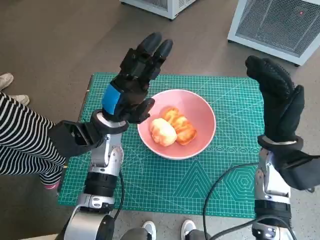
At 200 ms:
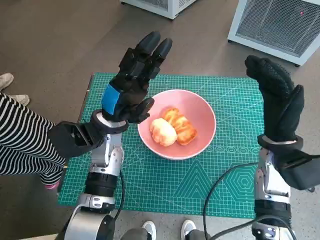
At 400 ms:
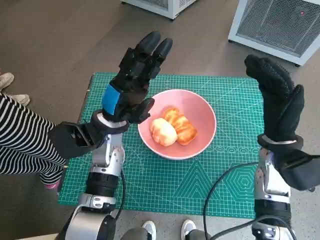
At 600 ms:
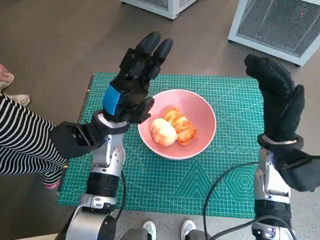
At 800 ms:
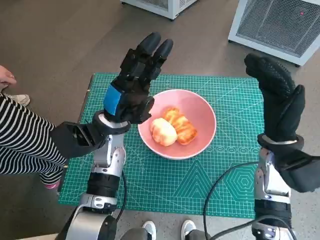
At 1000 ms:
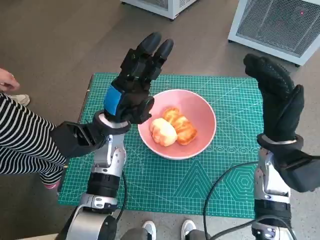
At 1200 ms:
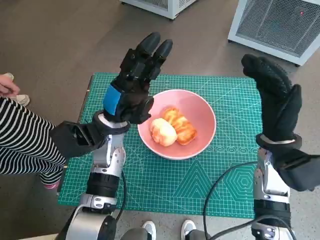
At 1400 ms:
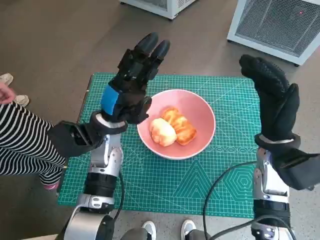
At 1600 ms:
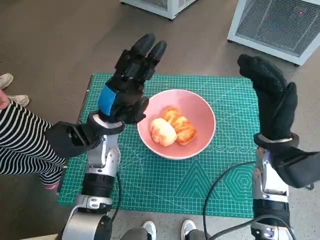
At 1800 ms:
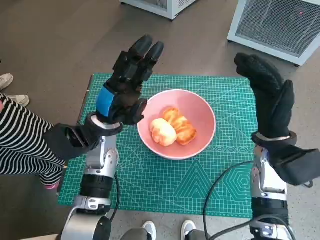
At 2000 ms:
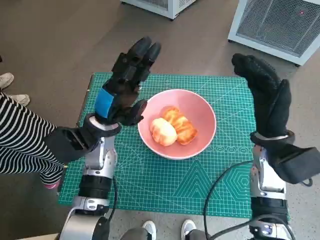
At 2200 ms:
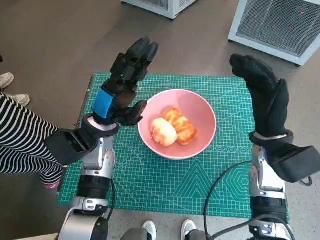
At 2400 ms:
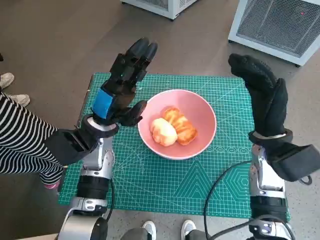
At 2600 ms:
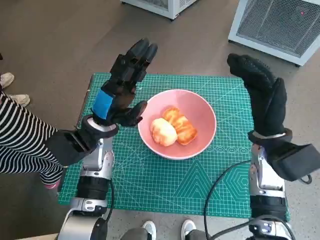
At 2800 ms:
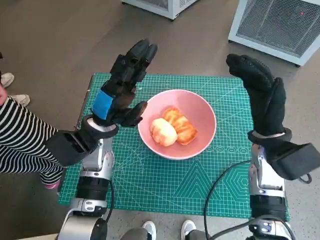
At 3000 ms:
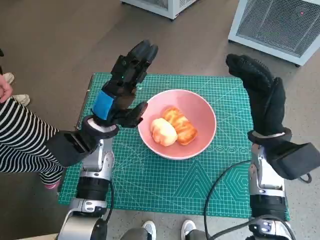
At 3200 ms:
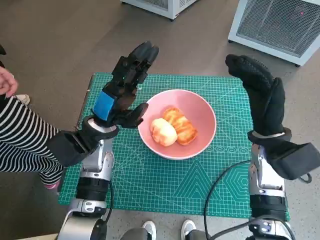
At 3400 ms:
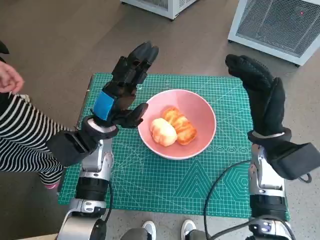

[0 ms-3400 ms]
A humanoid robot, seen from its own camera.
Task of the whole recording: Push the bowl into the center of the table and put the bread into the bowl.
0 ms to 1600 ms: Both hands stay about where they are.
1600 ms to 3400 ms: The hands stay close to where they were, moving slightly.

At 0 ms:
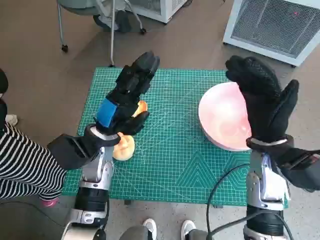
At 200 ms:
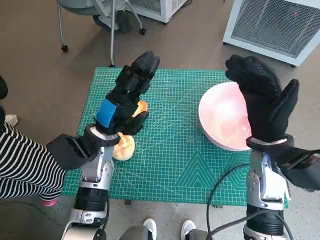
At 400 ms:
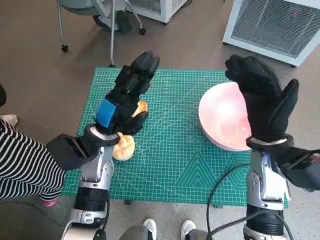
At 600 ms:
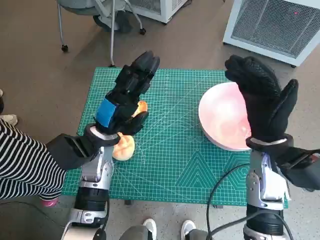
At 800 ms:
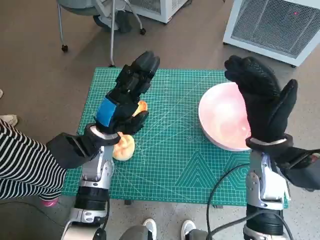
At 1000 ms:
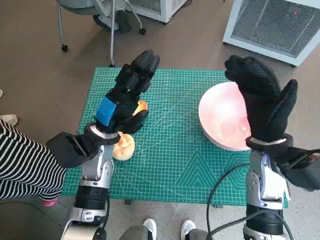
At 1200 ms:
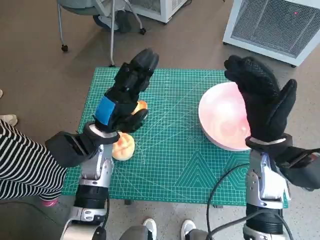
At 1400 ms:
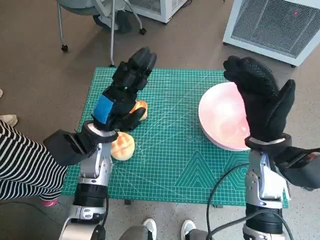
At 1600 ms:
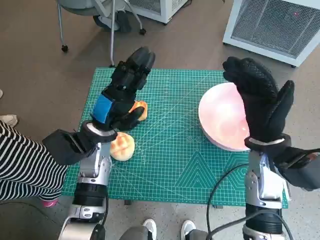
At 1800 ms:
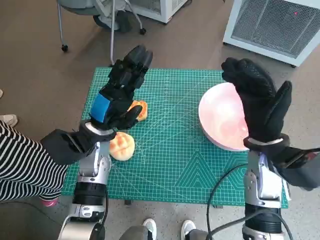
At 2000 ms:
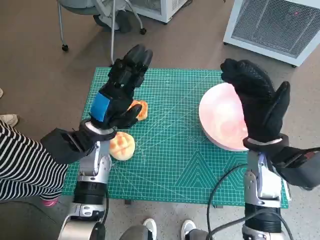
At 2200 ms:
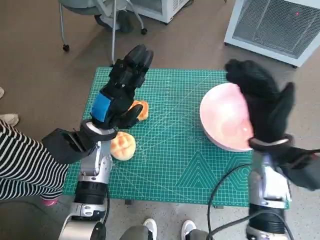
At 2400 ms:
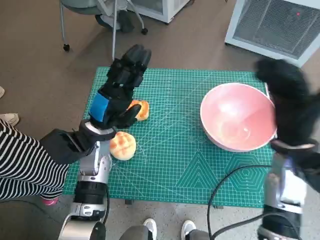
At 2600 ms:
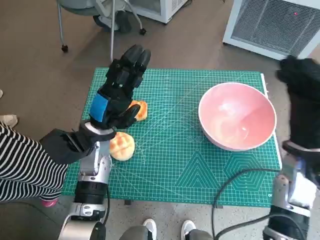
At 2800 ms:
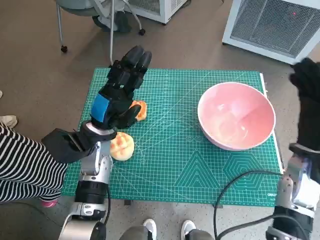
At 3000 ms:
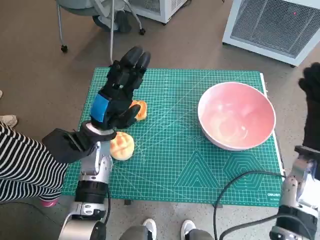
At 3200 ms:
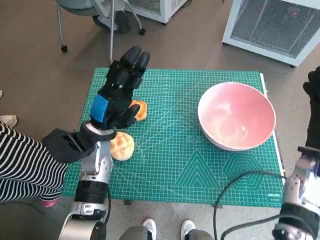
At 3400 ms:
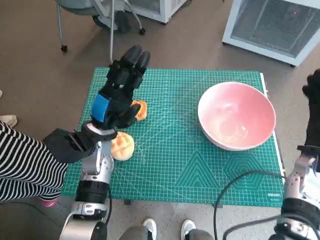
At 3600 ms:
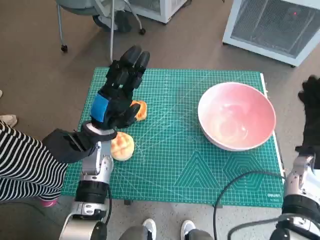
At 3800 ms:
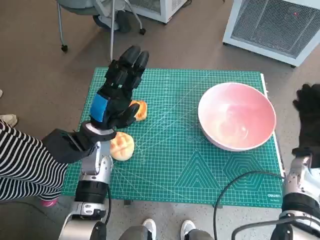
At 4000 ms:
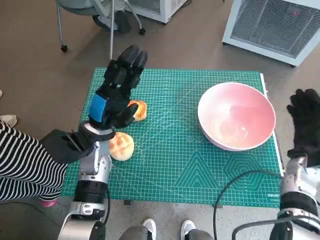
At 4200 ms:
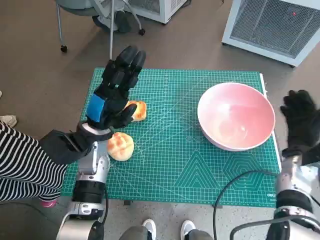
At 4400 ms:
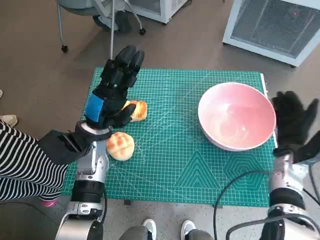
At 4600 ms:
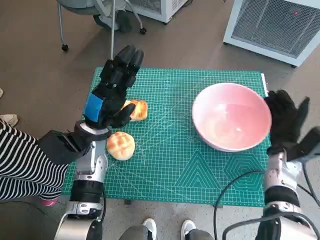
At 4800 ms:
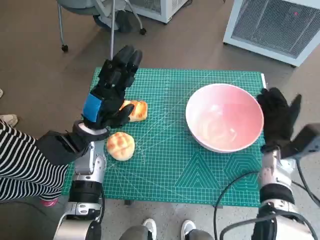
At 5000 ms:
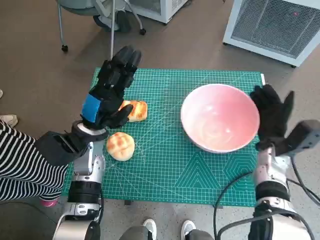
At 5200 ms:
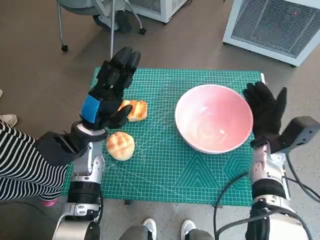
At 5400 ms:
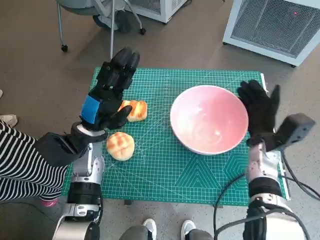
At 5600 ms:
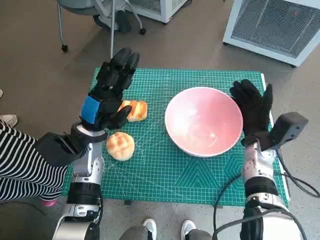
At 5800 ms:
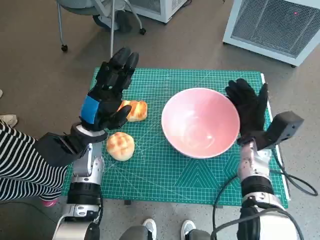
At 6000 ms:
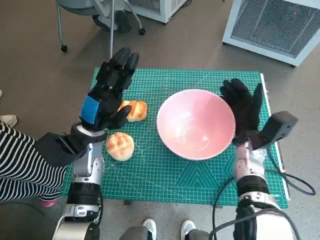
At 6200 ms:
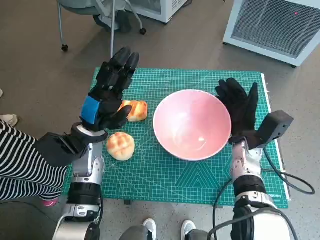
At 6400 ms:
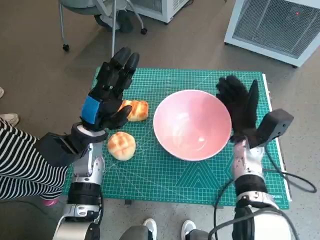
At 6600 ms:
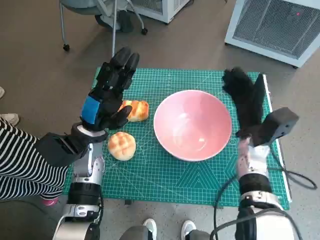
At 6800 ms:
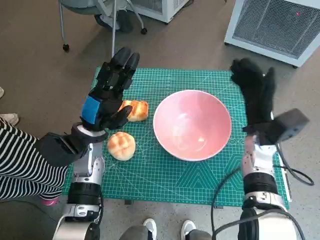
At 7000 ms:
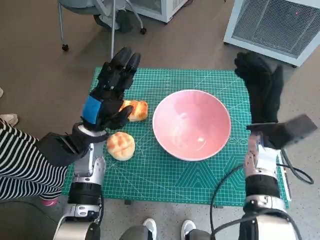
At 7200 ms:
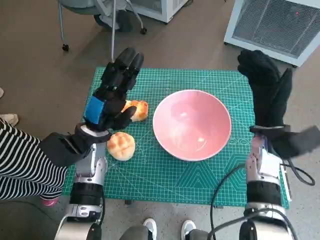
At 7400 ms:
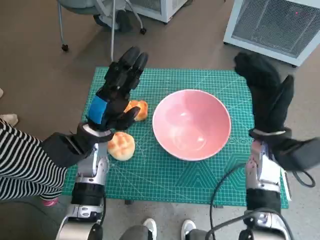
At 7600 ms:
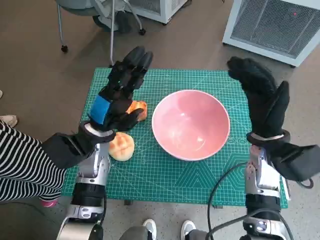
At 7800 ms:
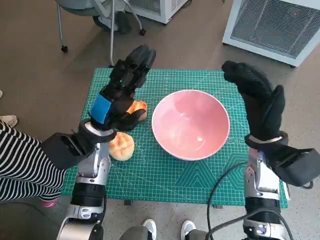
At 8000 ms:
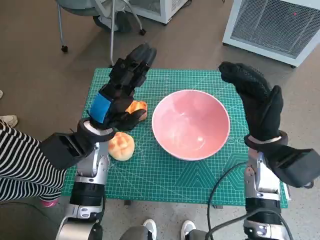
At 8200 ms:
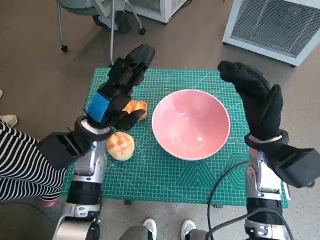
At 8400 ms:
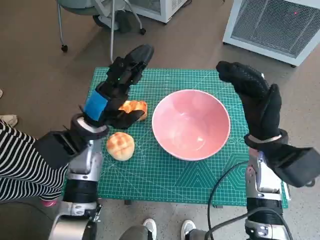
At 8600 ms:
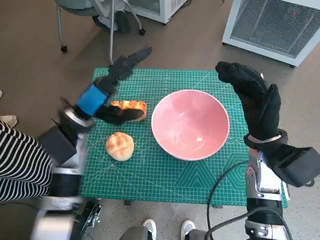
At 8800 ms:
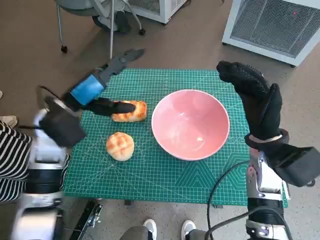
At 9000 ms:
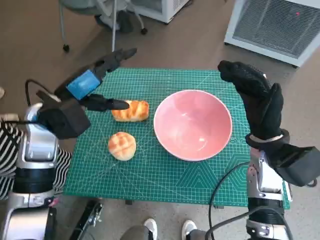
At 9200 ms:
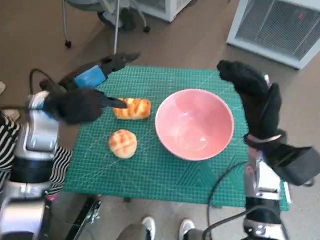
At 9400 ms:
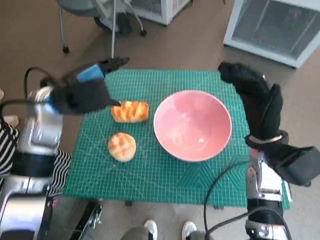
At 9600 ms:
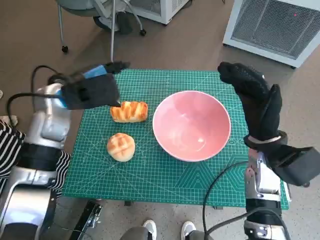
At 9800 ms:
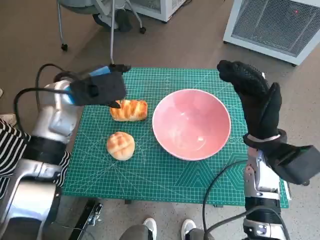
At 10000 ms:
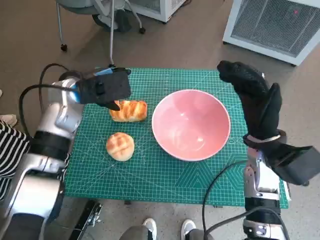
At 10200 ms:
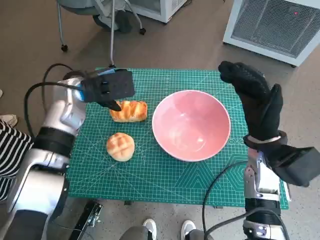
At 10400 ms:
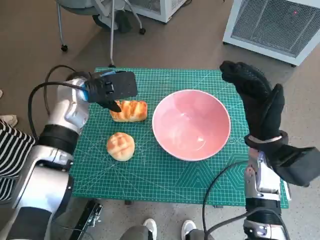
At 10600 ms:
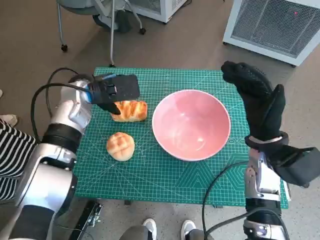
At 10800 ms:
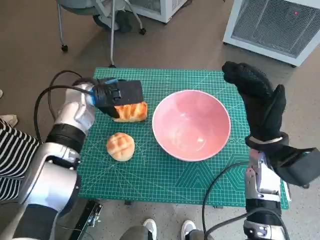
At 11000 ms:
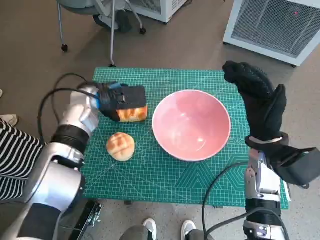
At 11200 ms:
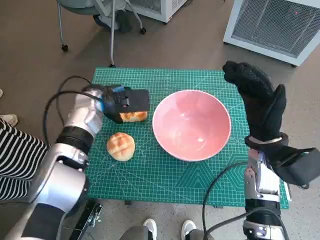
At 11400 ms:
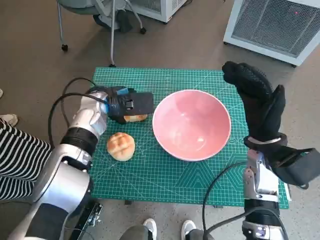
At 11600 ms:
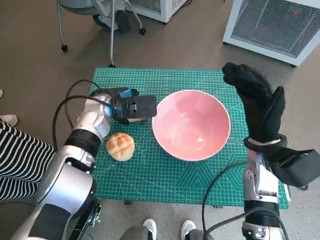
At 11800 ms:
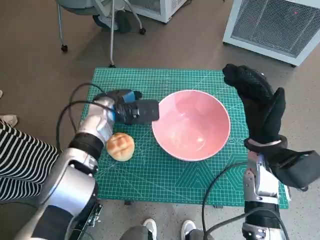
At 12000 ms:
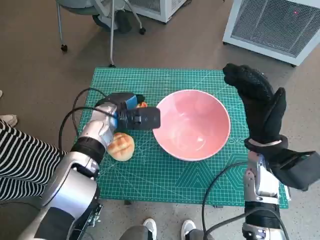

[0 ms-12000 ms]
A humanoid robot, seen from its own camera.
Task of the whole recording: Push the bowl into the center of the table and put the bread into the bowl.
Step, 0 ms to 6600 ms: Move the pink bowl to the center of table with right hand.
1600 ms to 3000 ms: The right hand heads to the right, covering roughly 10 cm.
3000 ms to 4400 ms: The right hand heads downward, covering approximately 5 cm.
4400 ms to 6000 ms: The right hand moves to the left, roughly 10 cm.
6000 ms to 7600 ms: The right hand travels upward by approximately 10 cm.
7600 ms to 9000 ms: The left hand shifts approximately 10 cm upward and to the left.
9000 ms to 10400 ms: The left hand moves forward, approximately 5 cm.
10400 ms to 12000 ms: The left hand moves downward, some 10 cm.

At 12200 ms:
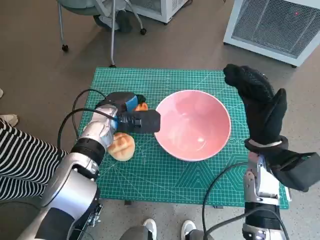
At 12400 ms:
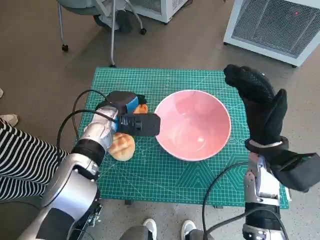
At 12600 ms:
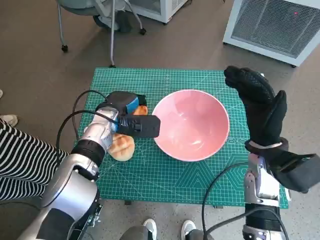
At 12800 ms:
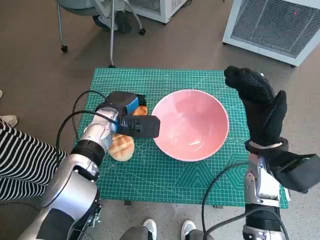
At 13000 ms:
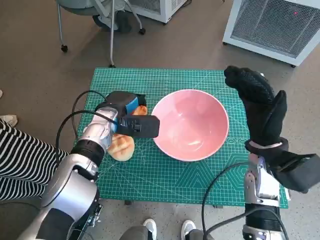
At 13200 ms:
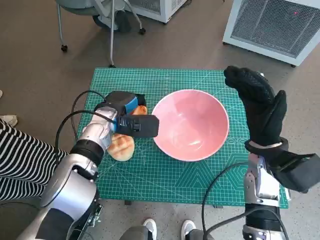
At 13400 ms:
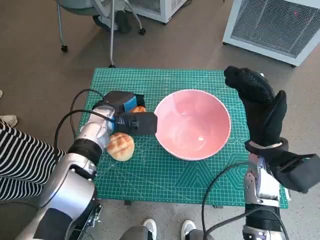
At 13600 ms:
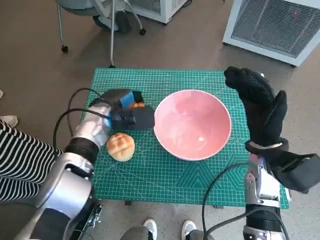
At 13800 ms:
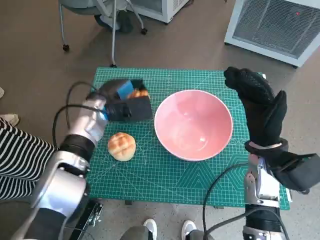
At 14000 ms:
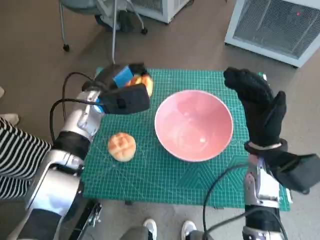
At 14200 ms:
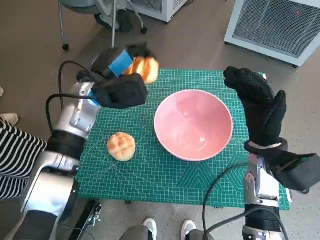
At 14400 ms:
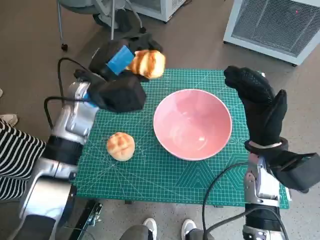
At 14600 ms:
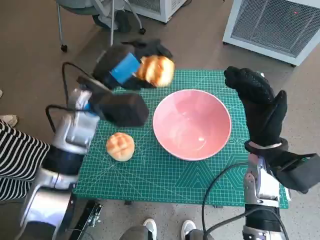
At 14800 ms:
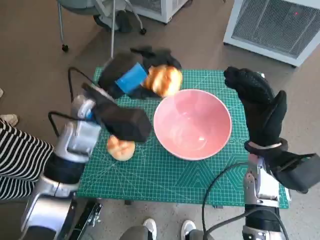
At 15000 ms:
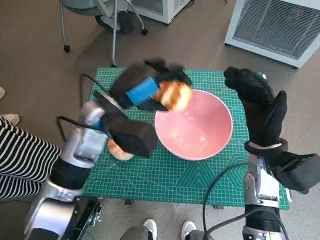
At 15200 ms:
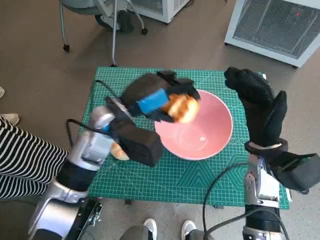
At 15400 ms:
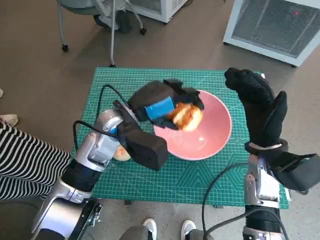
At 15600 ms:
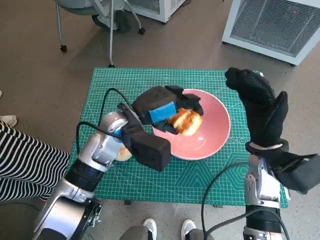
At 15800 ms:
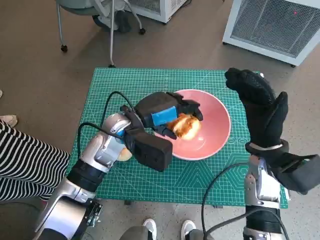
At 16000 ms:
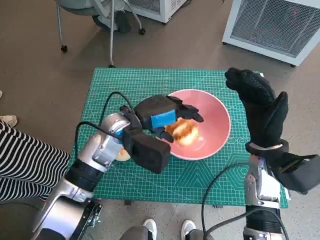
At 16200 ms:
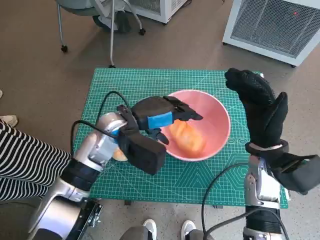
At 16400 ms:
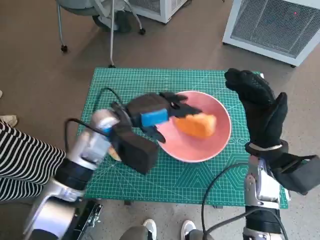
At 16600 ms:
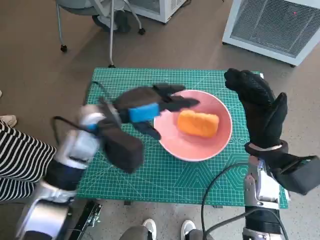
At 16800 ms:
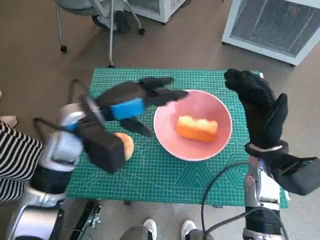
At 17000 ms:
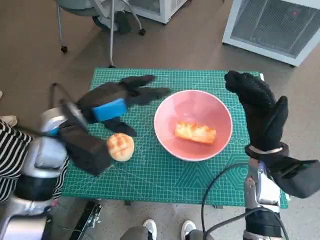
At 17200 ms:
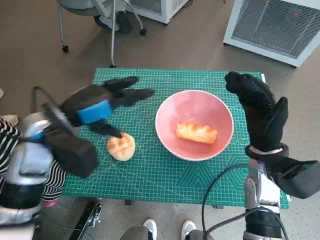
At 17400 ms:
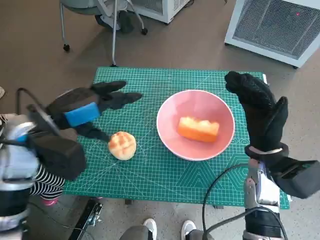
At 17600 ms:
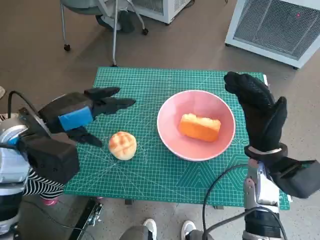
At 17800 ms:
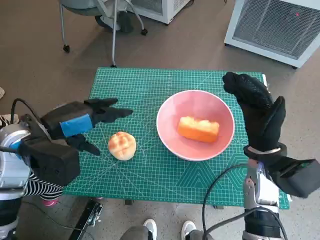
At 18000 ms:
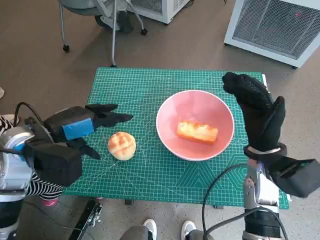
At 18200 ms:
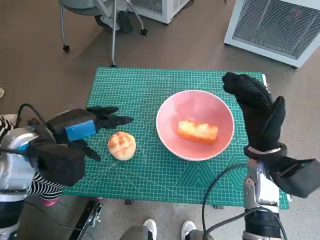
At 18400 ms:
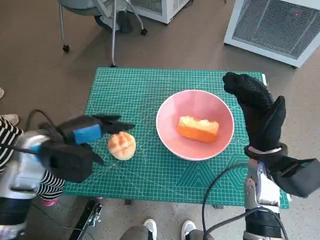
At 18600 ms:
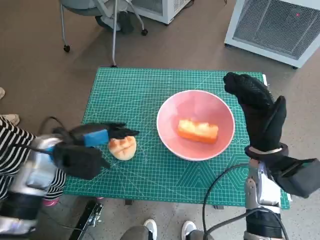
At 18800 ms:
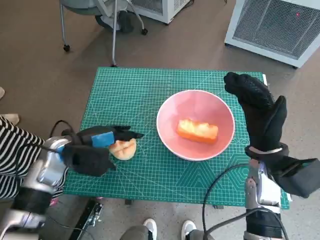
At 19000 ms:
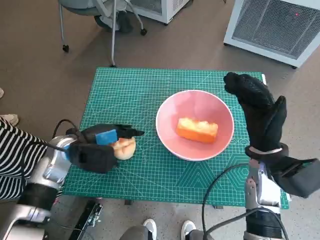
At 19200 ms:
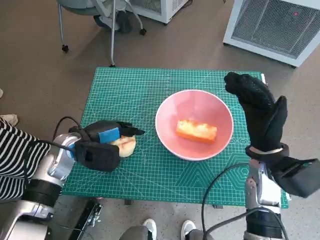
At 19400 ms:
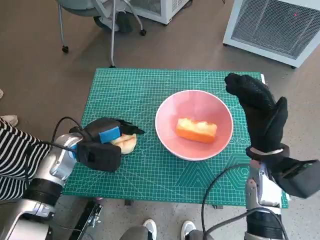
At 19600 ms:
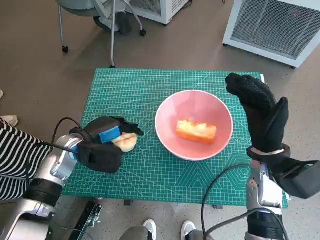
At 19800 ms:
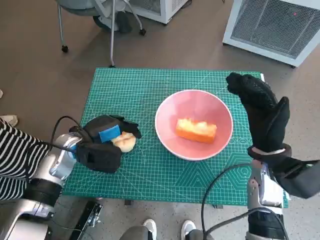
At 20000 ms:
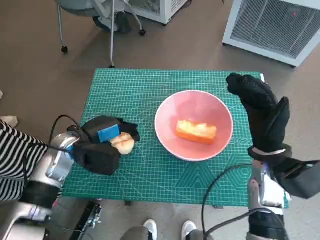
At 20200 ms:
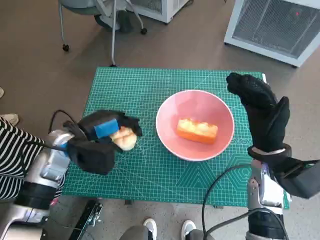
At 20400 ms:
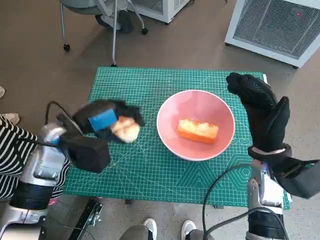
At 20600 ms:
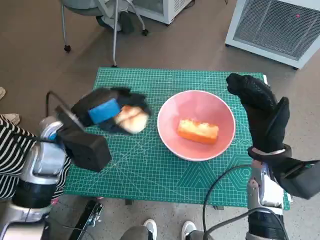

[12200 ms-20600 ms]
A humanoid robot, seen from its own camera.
Task of the whole recording: Push the bowl into the center of the table and put the bread into the bowl.
Step, 12400 ms to 16600 ms: Place the long bread in pink bowl with left hand.
Step, 16800 ms to 19400 ms: Grasp the round bread with left hand.
12200 ms to 13600 ms: There are only small adjustments of the hands.
13600 ms to 15000 ms: The left hand travels upward and backward by approximately 10 cm.
16400 ms to 17800 ms: The left hand moves to the left and backward, approximately 15 cm.
17800 ms to 19200 ms: The left hand moves downward, about 10 cm.
19200 ms to 20600 ms: The left hand goes approximately 10 cm upward.